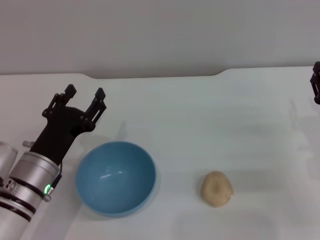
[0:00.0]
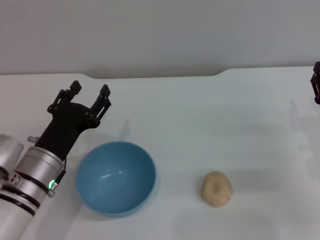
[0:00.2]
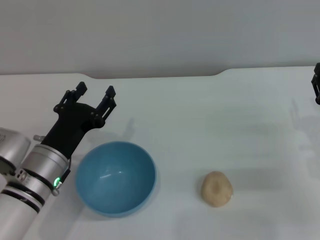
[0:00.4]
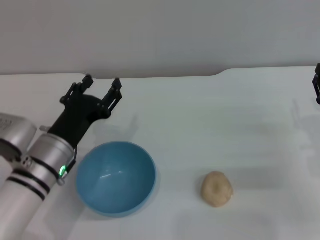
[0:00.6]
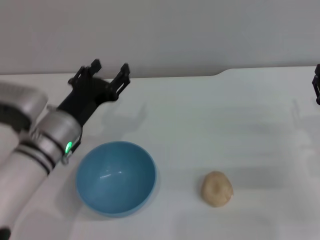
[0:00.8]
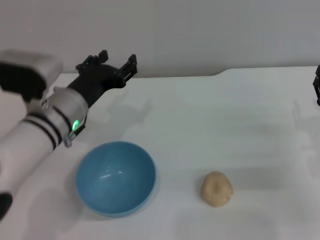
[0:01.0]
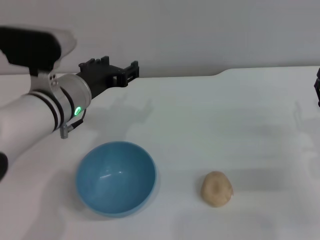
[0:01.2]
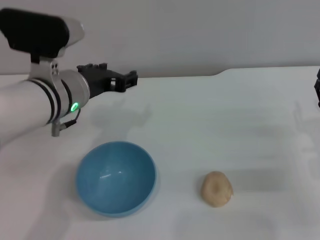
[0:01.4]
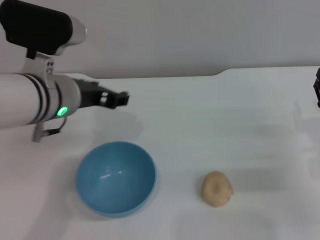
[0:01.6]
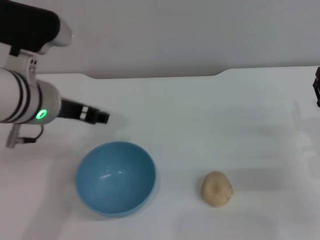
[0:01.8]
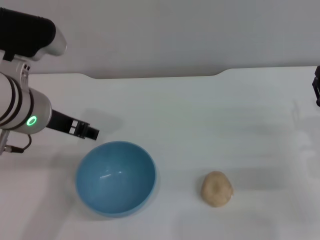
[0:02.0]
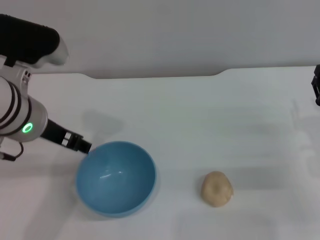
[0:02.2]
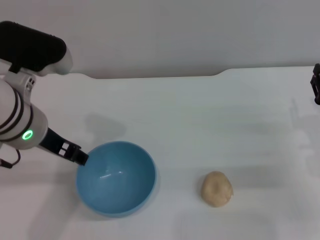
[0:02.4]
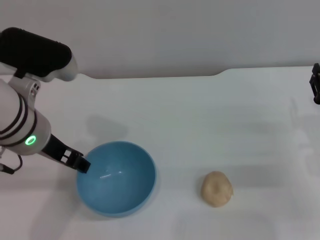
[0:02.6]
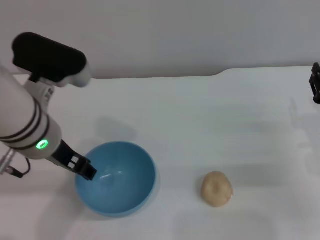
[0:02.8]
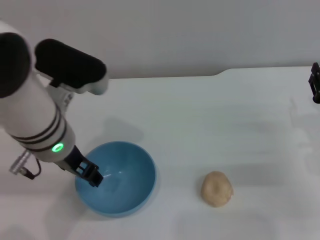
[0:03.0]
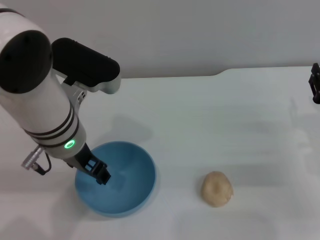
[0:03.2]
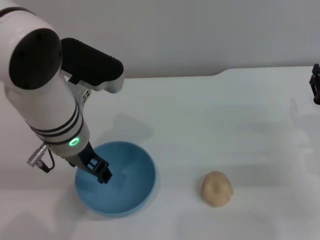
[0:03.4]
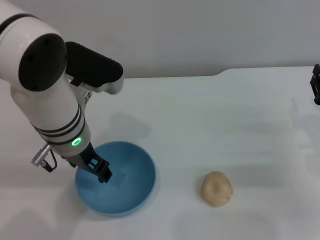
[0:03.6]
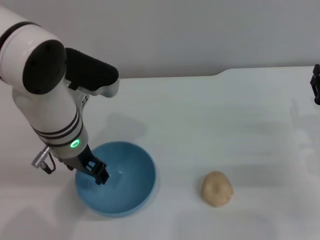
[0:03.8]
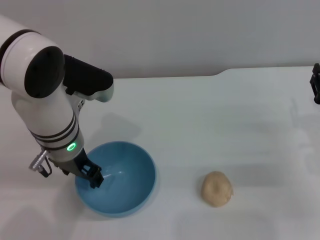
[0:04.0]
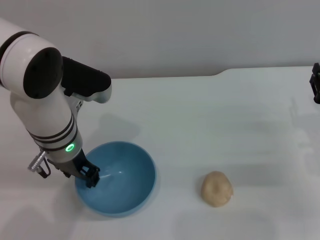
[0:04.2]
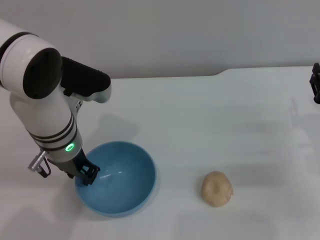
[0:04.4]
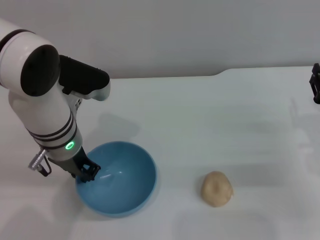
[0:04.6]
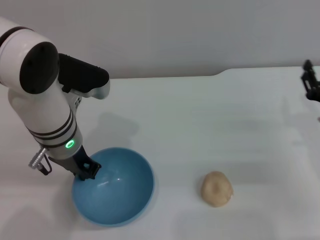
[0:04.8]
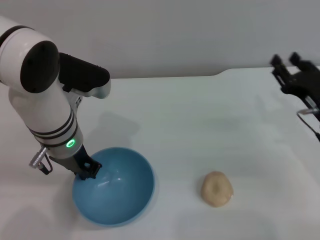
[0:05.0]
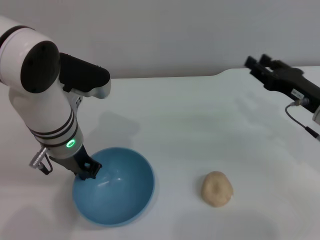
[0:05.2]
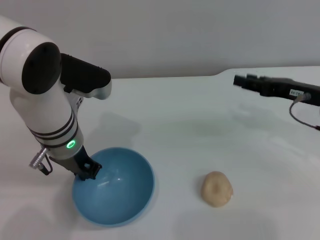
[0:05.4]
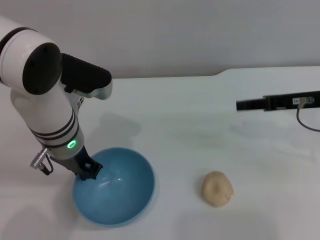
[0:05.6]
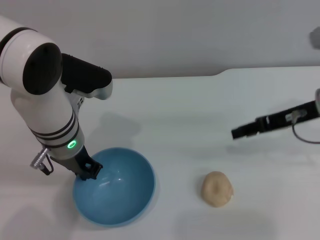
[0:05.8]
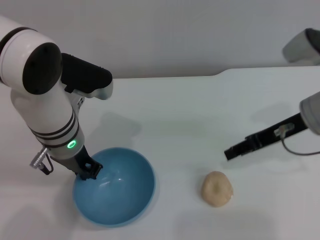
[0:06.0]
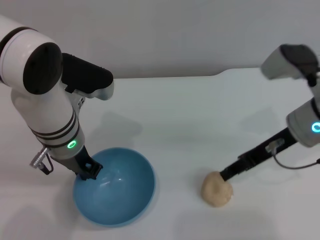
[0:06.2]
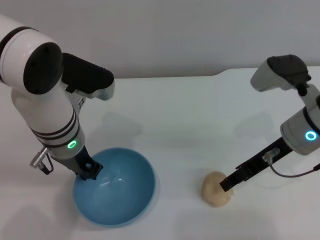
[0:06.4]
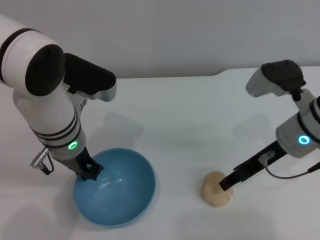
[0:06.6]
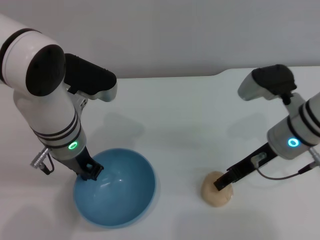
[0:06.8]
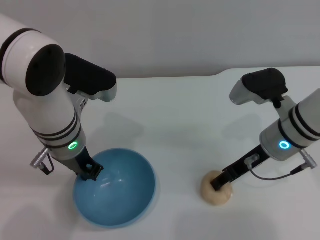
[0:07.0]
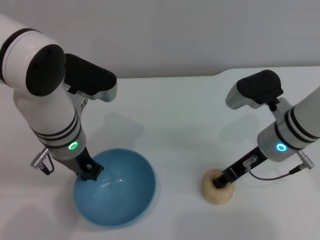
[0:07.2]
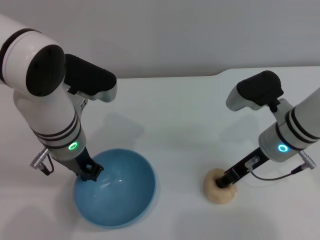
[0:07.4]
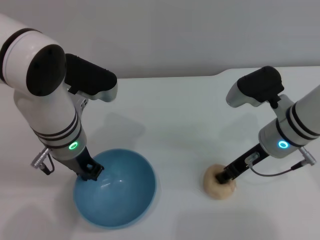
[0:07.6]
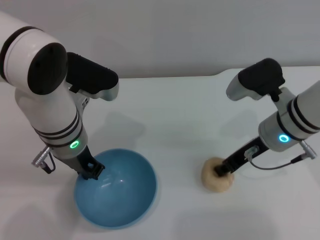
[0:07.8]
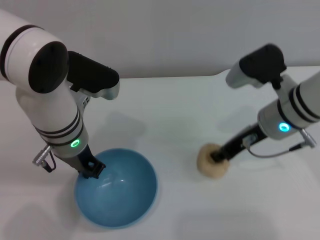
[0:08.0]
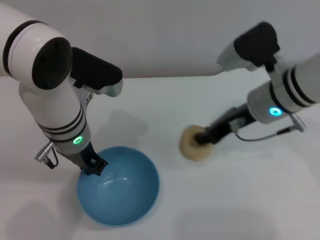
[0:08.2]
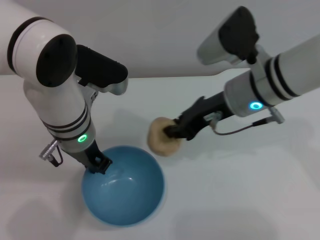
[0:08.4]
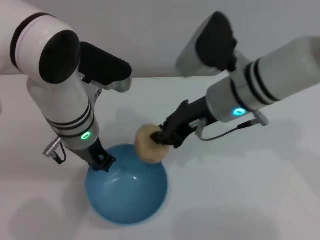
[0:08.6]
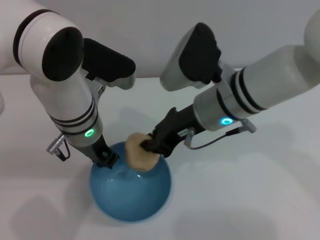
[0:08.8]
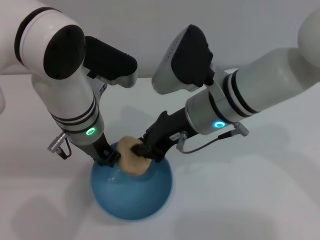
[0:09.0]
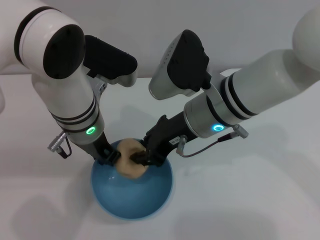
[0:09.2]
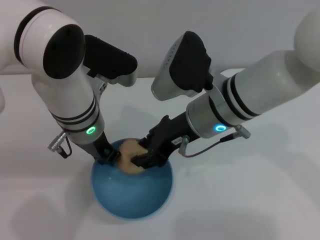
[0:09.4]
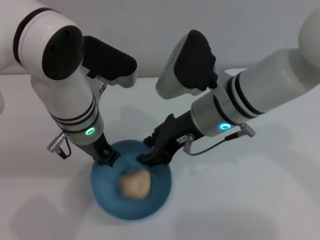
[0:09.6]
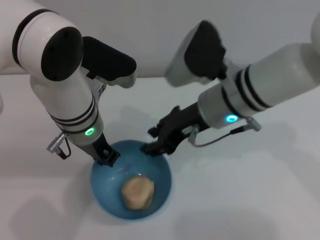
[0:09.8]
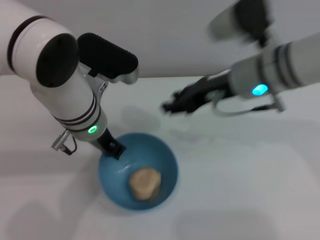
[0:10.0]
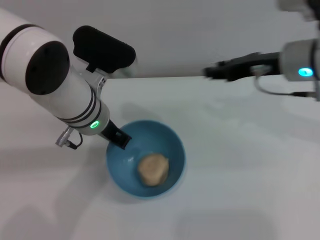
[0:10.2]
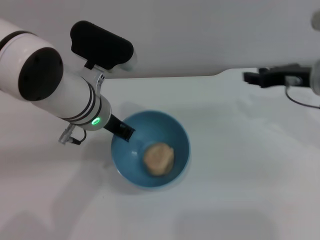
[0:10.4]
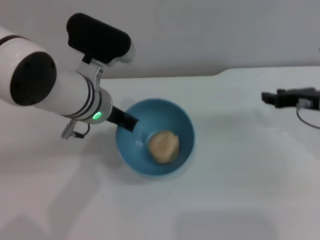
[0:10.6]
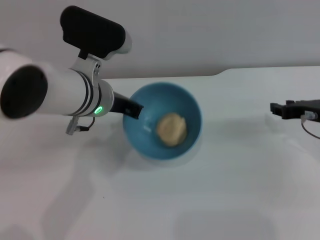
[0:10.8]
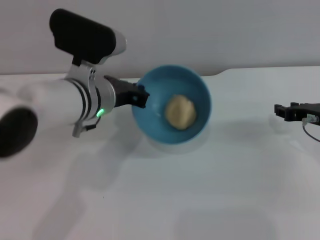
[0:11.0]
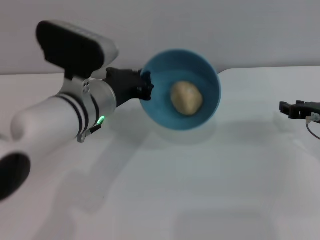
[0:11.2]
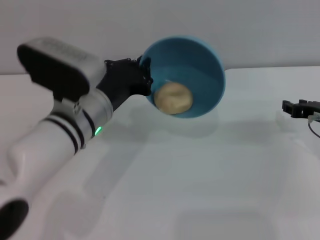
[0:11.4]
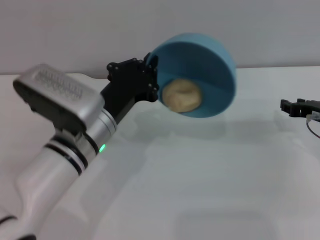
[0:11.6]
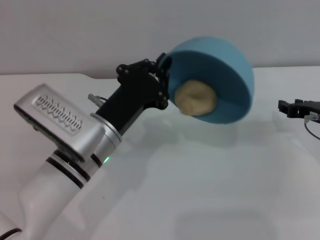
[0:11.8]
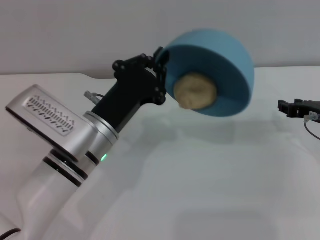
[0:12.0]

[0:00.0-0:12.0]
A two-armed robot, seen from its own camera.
Task of the whole recording: put the egg yolk pastry into the blue bowl and pour it out repeatedly.
Step, 0:00.0 to 0:08.2: Pick up the bowl with the left gripper.
Step, 0:08.4 to 0:08.6: Pick up the egg yolk pastry with the right gripper.
Step, 0:08.8 to 0:09.6: Place the egg yolk pastry into the bowl.
0:00.0 to 0:01.6: The left gripper travels upward and forward by approximately 15 cm.
0:03.0 to 0:04.4: The left gripper moves roughly 5 cm.
0:04.4 to 0:06.0: The right gripper shifts some 15 cm upward, to the left and forward; the left gripper closes up.
0:06.0 to 0:07.6: The right gripper shifts some 5 cm downward and to the left.
0:07.6 to 0:09.0: The right gripper shifts about 15 cm to the left and upward, and closes.
0:09.0 to 0:10.4: The right gripper moves to the right, about 20 cm, and opens its fingers.
0:10.4 to 0:12.0: The left gripper shifts about 10 cm backward and downward. The right gripper moves downward, about 5 cm.

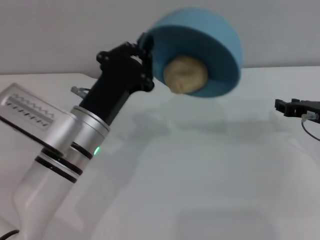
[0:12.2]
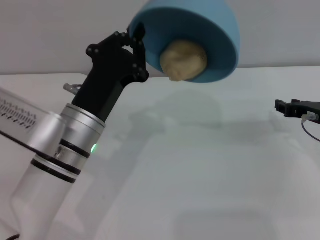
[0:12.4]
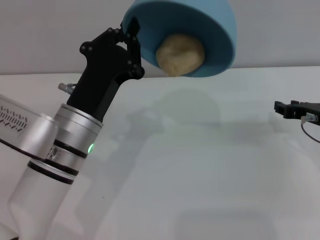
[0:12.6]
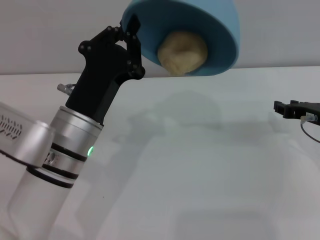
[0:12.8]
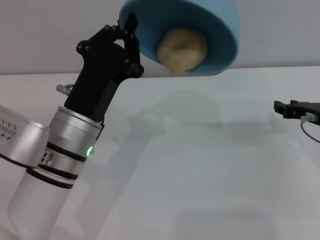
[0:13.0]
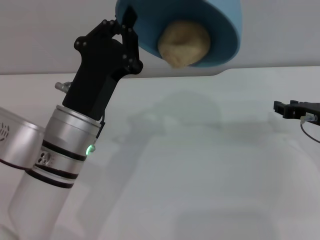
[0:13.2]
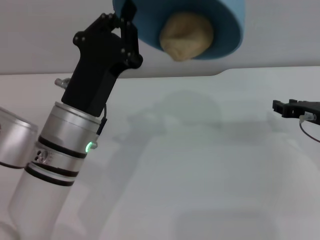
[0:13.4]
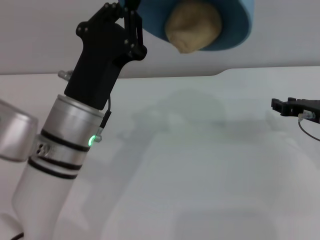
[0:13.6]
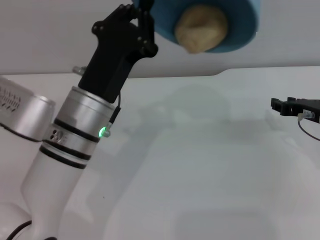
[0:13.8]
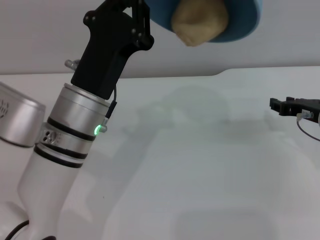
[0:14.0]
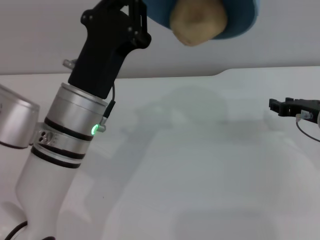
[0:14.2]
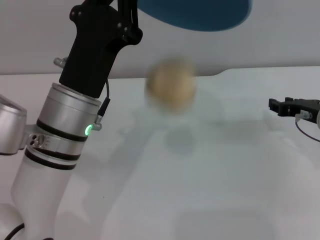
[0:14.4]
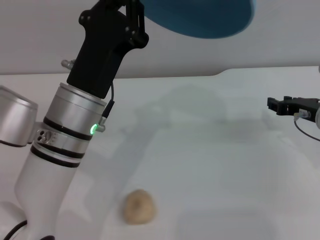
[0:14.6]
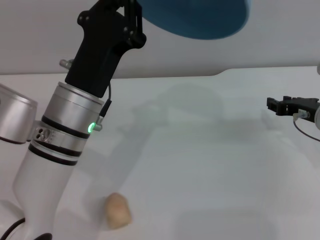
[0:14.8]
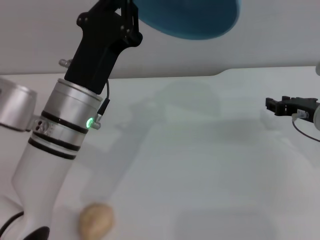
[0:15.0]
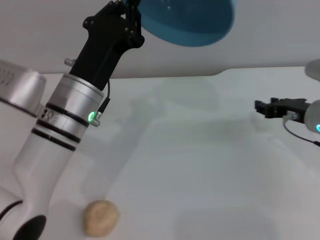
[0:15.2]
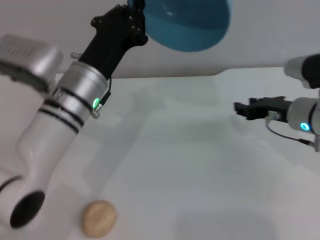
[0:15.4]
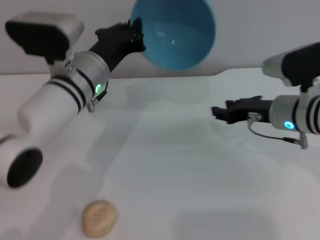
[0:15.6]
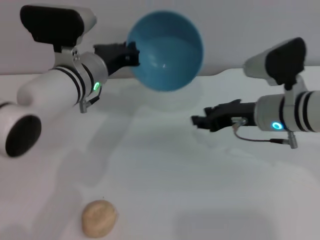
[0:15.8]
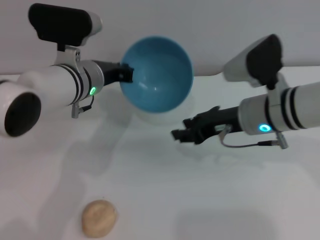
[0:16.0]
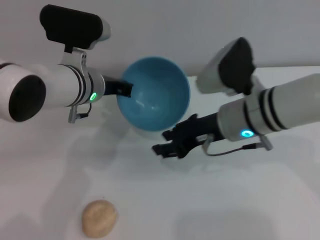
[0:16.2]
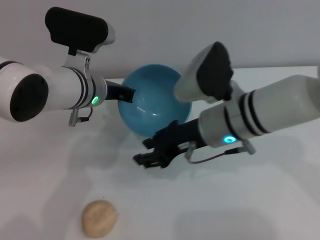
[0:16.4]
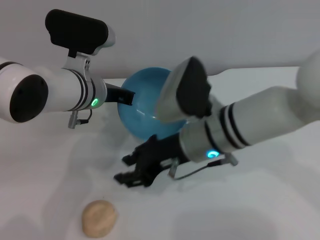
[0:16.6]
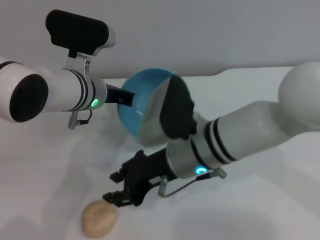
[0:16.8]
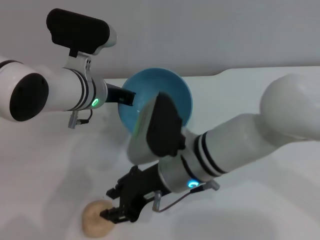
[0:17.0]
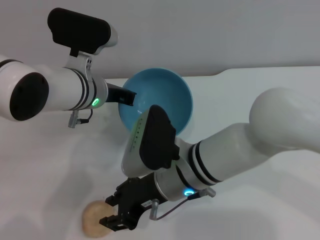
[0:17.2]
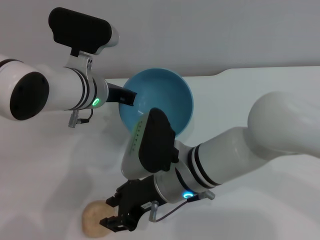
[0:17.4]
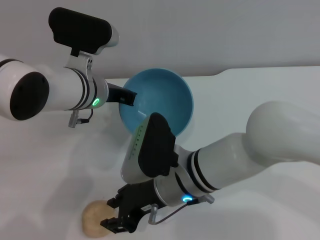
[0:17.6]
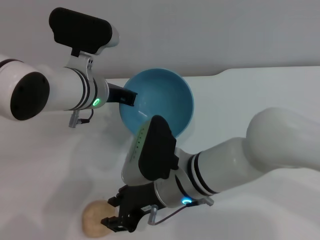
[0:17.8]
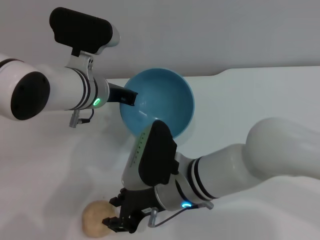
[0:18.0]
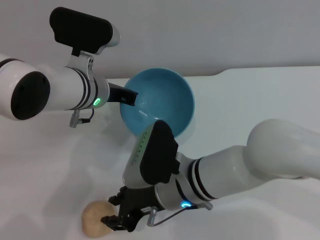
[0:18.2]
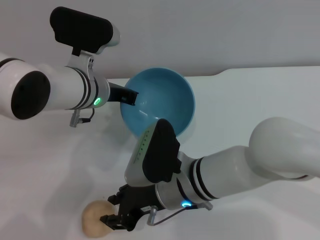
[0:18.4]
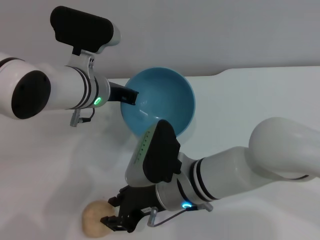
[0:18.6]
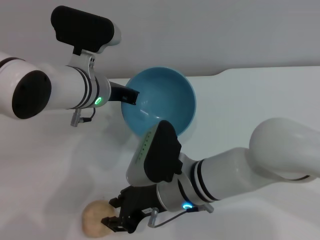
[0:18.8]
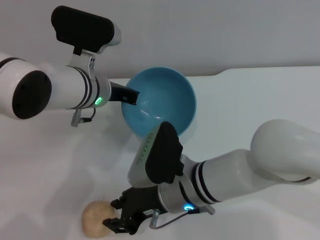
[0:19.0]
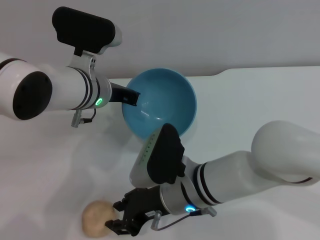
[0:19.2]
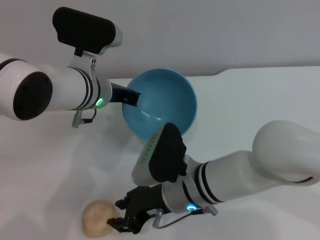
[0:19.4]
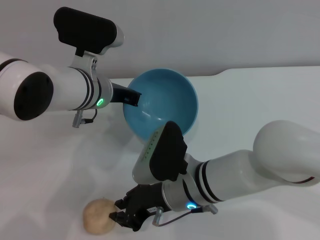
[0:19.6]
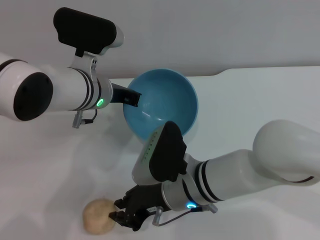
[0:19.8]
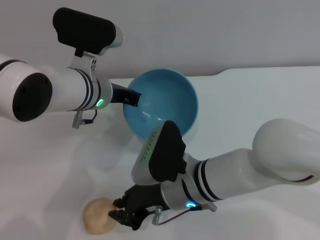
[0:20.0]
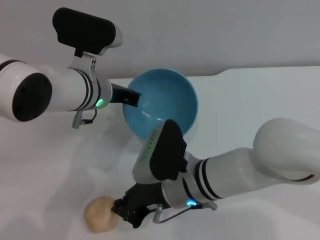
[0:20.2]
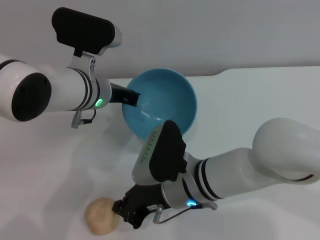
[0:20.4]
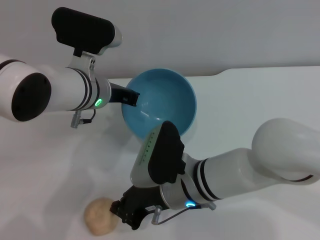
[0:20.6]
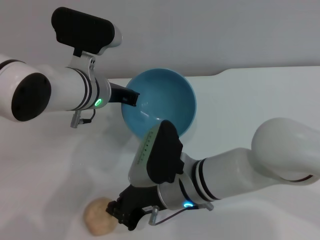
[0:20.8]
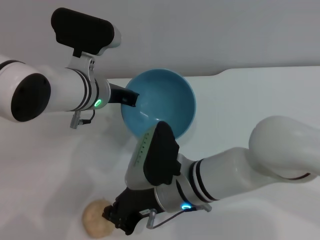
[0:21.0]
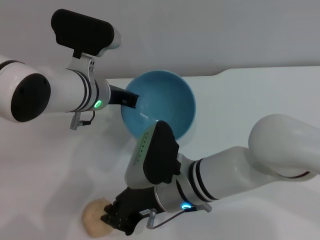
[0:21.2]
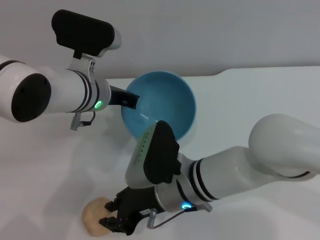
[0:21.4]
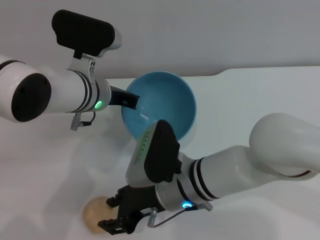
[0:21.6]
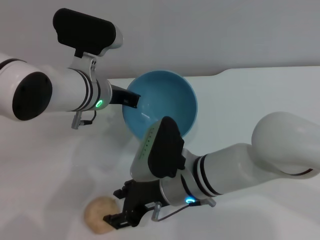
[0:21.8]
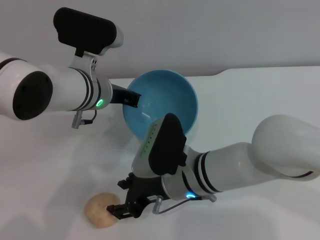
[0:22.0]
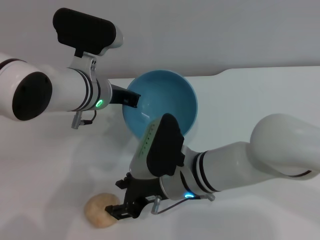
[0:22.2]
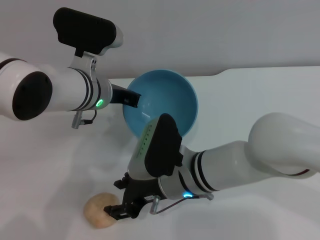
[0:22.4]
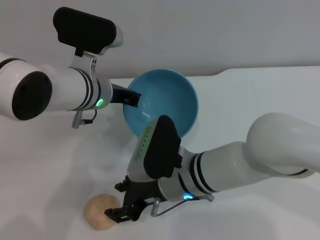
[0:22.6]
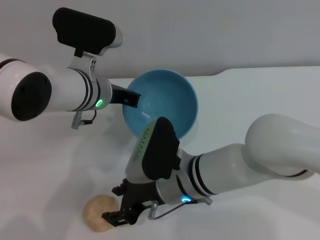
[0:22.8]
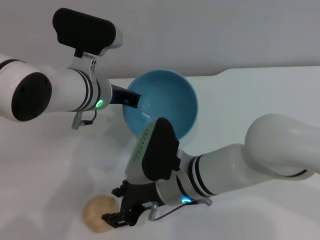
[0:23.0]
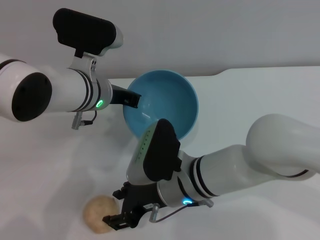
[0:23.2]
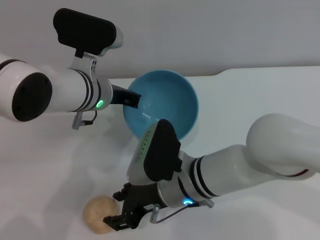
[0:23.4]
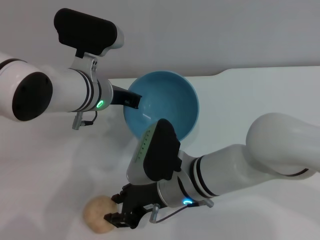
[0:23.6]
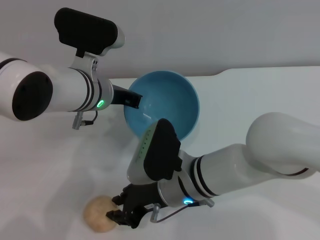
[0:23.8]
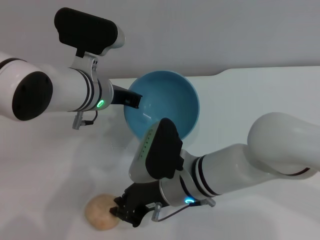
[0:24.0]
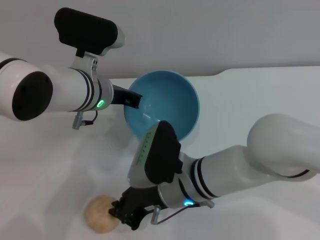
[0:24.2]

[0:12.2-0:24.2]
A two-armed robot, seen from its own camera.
Task of the whole recording: put the egg yolk pastry into the blue bowl and pour it out repeatedly.
Step, 0:12.2 to 0:14.4: Pour the egg yolk pastry out of bowl.
0:15.2 to 0:16.6: The right gripper heads to the left, covering some 20 cm; the left gripper travels forward by approximately 5 cm.
0:16.6 to 0:18.2: The right gripper shifts approximately 5 cm downward.
0:18.2 to 0:19.8: There are only small adjustments of the grippers.
0:19.8 to 0:21.2: Neither gripper changes place.
0:21.2 to 0:22.6: The right gripper opens up.
0:22.6 to 0:24.2: The right gripper closes its fingers.
